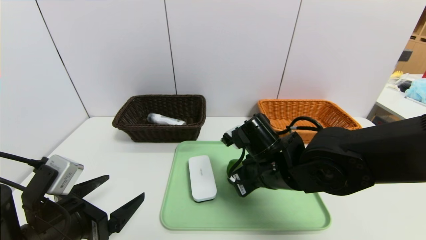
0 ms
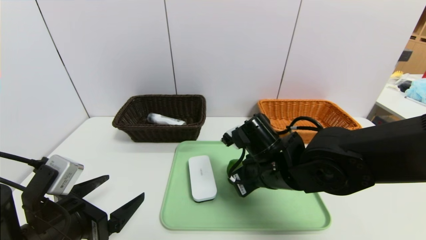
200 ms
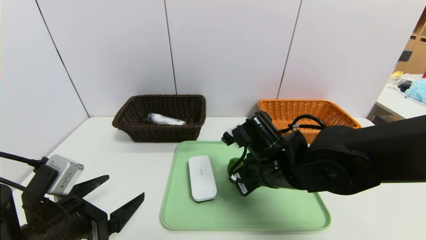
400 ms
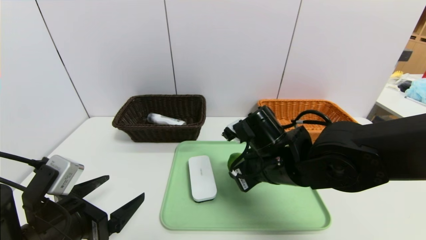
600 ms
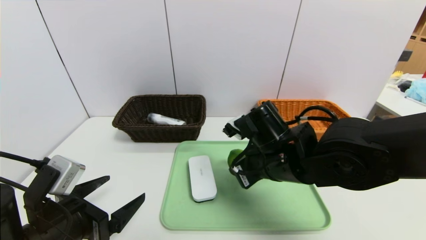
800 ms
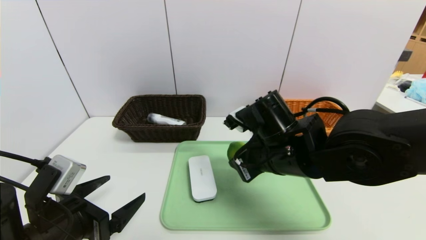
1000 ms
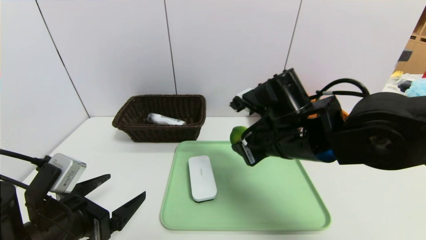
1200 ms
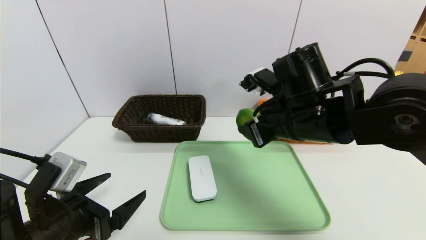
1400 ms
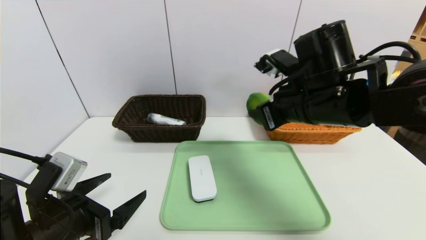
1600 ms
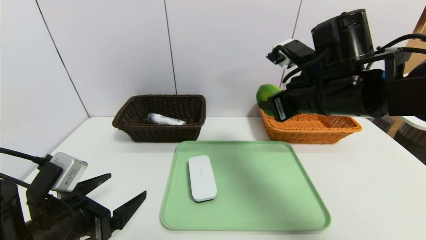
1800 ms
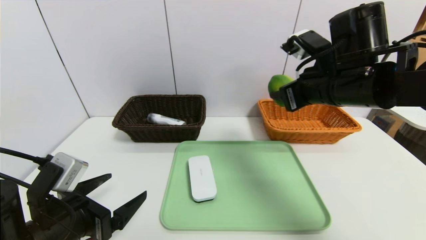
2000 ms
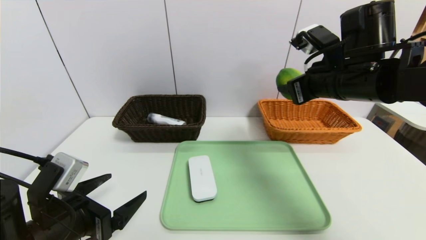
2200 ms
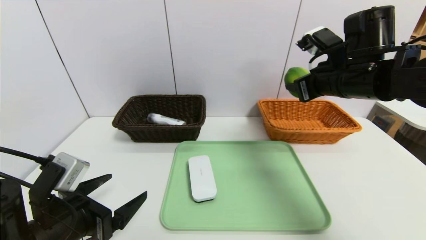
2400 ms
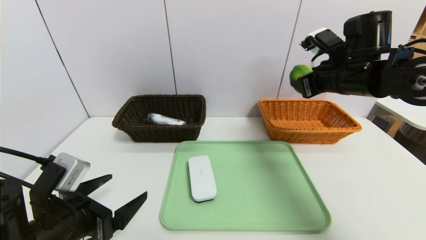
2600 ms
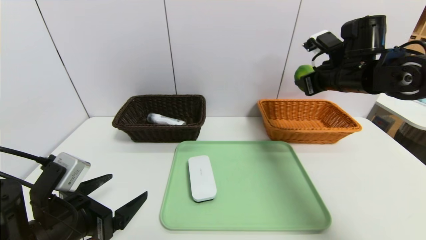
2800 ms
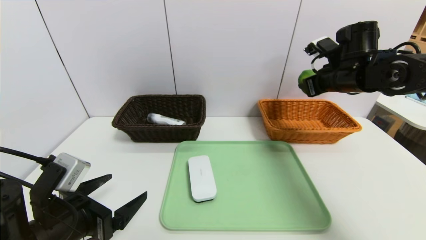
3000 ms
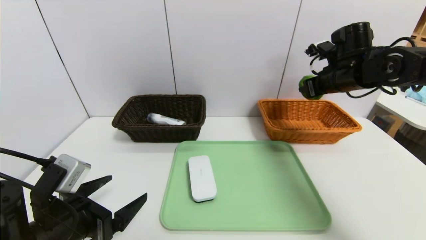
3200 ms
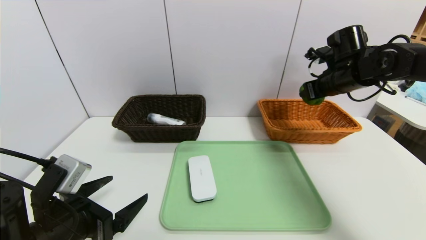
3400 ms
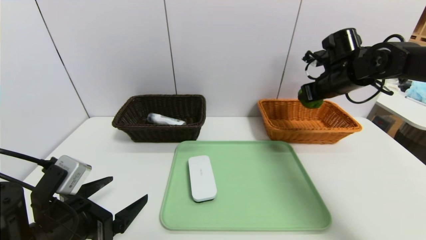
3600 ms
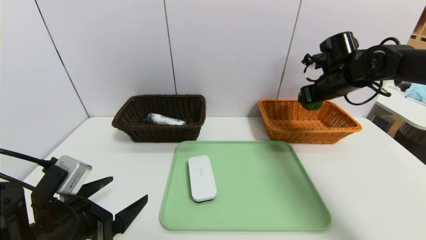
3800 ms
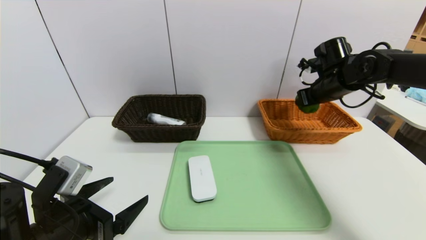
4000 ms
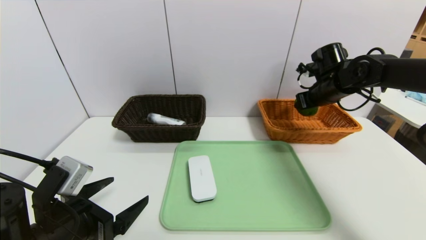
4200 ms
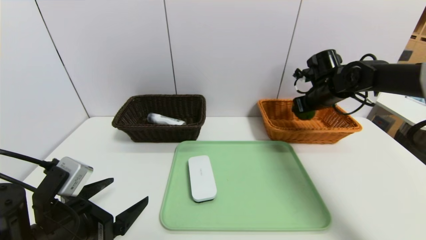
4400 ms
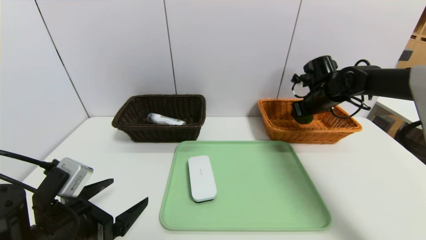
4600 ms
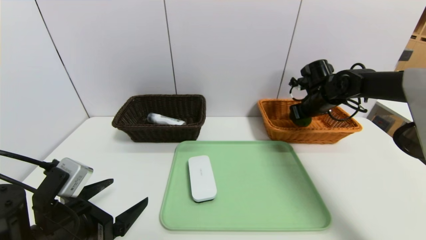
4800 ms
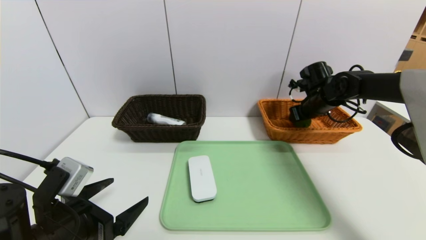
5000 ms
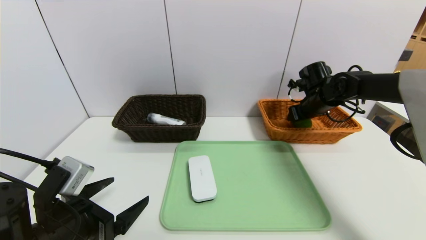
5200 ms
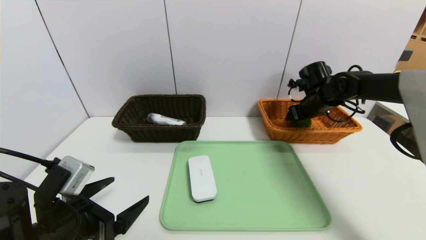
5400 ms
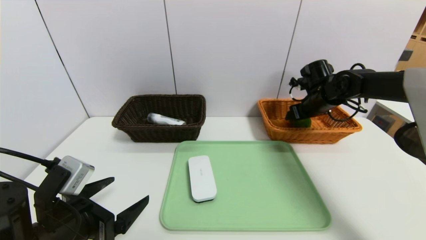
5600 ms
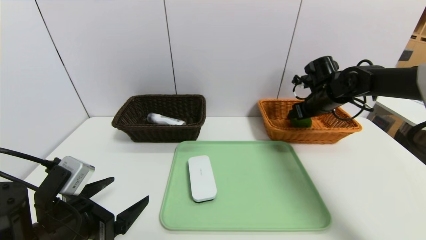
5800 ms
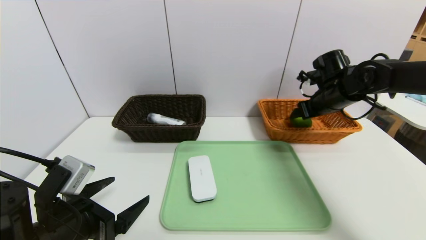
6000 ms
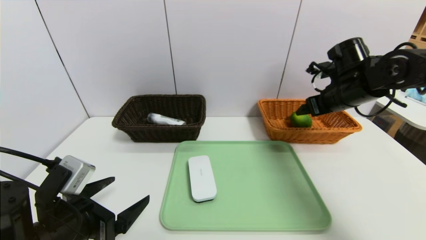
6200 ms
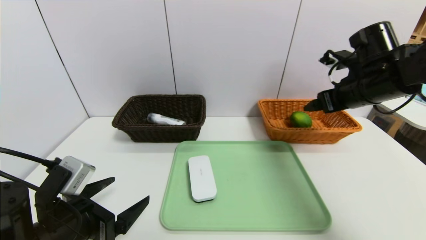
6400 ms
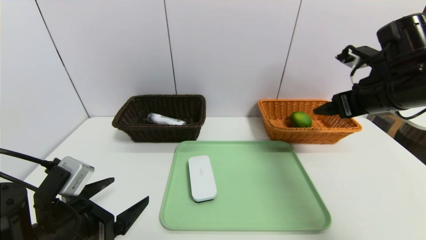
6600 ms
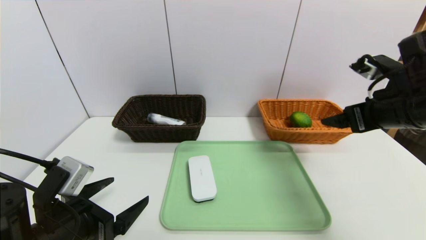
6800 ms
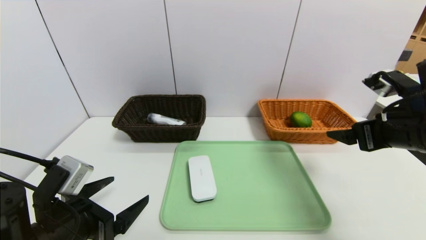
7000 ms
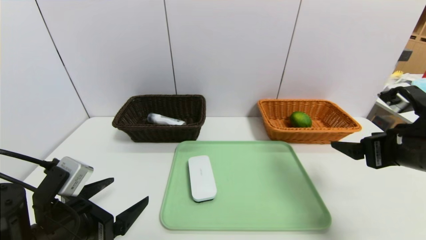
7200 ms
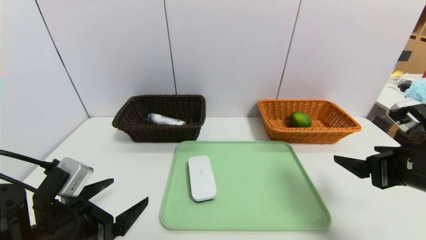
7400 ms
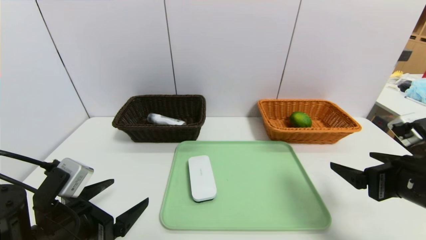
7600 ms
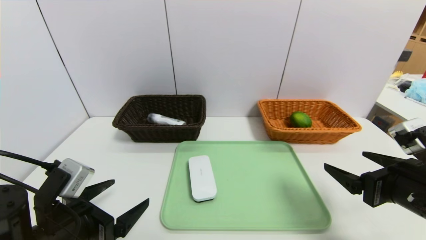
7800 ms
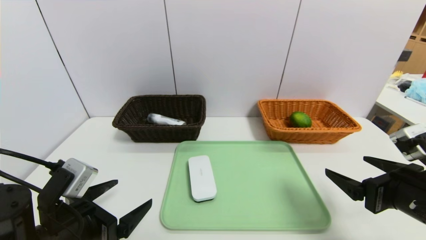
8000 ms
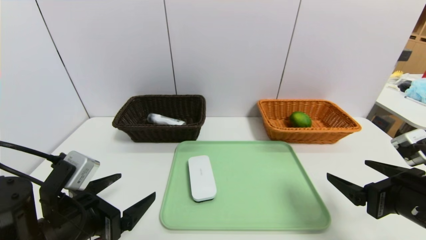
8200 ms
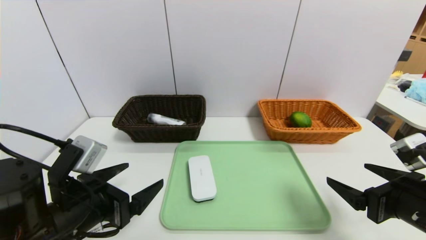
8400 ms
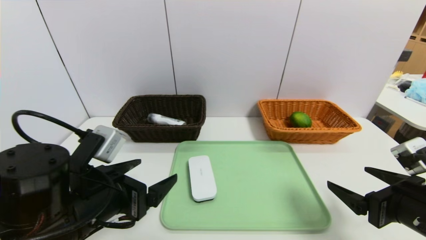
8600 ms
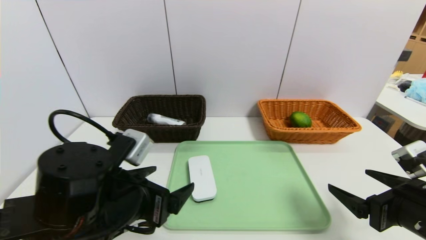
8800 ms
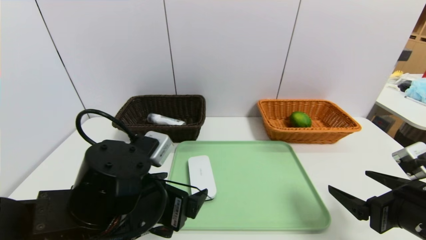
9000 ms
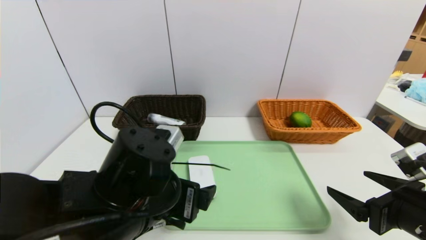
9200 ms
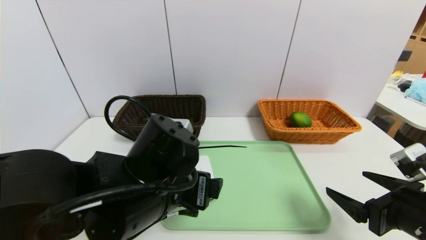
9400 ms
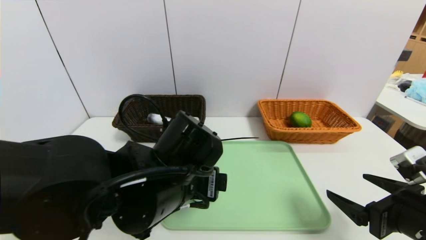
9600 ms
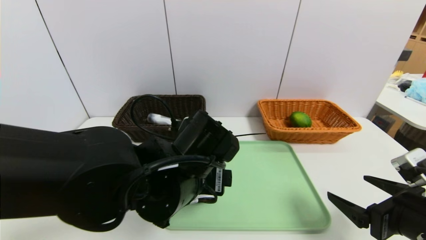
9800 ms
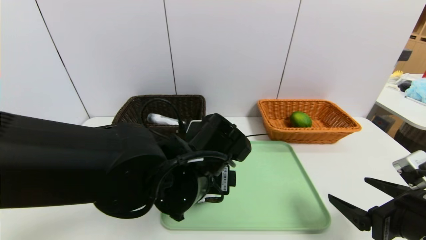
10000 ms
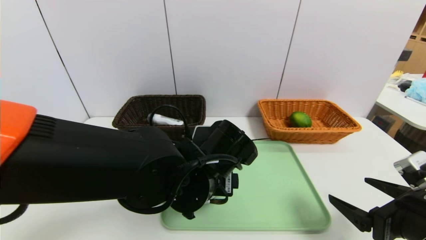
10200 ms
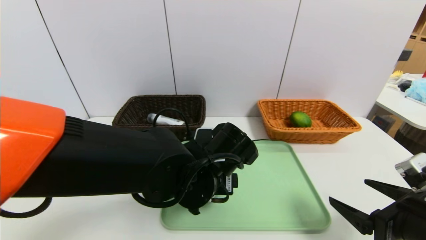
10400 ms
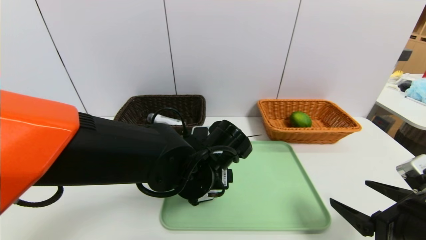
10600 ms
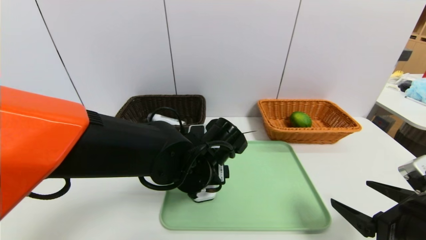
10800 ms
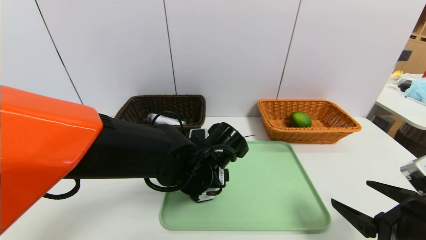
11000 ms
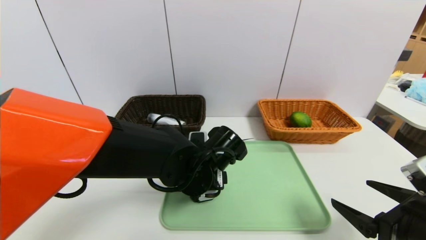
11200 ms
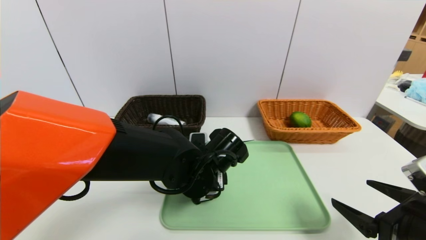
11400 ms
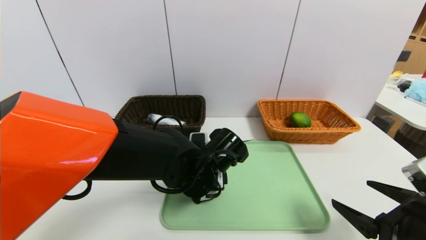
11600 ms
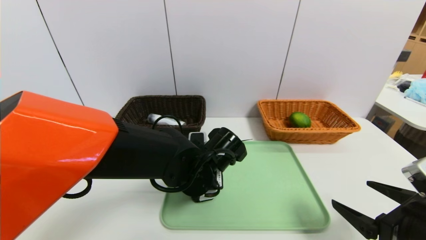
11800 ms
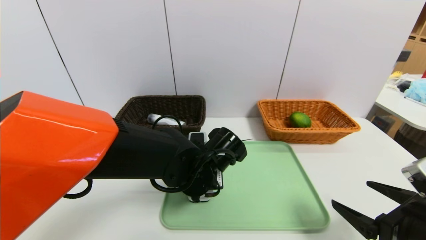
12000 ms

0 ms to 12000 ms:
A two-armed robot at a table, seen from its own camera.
Task of the whole recording: place the food in the right basket with the right gripper, and place the non food items in the left basket with the left gripper.
Step, 0 ms to 5600 ms: Grasp the lemon and put it in the right basket.
0 ms to 1600 ms: The right gripper travels upward and to the right by roughly 15 cm.
1600 ms to 3000 ms: The right gripper goes about 15 cm to the right and forward.
3000 ms to 4400 ms: The right gripper goes roughly 10 cm downward and forward.
4400 ms to 6000 ms: The right gripper opens.
6000 ms to 7600 ms: The right gripper goes some 25 cm backward.
7600 ms to 9000 ms: The left gripper travels to the right by some 10 cm.
9000 ms to 10400 ms: The left gripper goes some 10 cm to the right and forward.
10400 ms to 12000 ms: The left gripper closes.

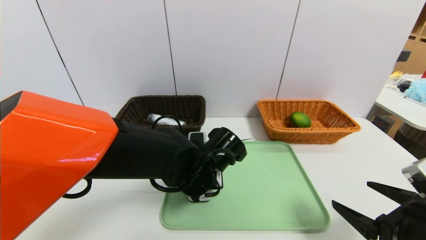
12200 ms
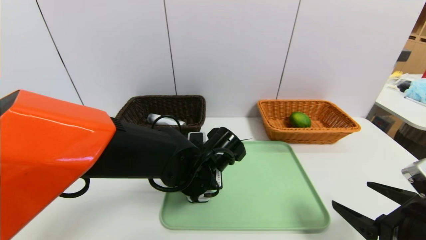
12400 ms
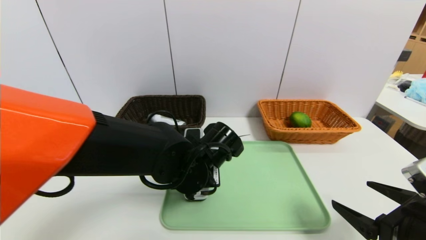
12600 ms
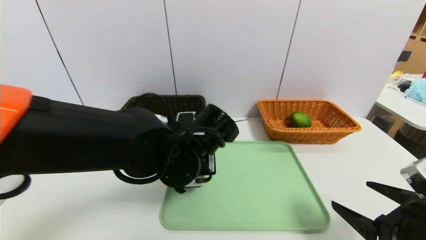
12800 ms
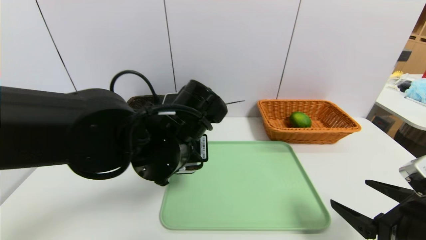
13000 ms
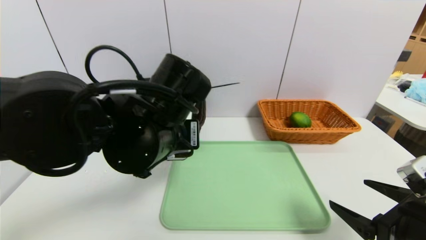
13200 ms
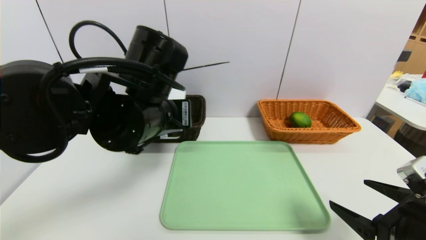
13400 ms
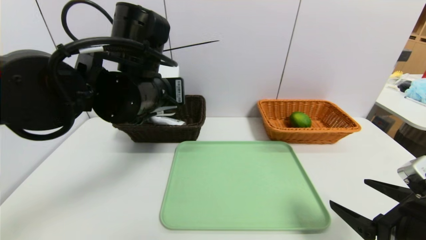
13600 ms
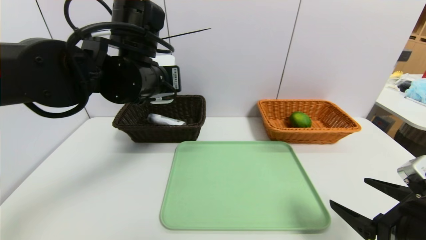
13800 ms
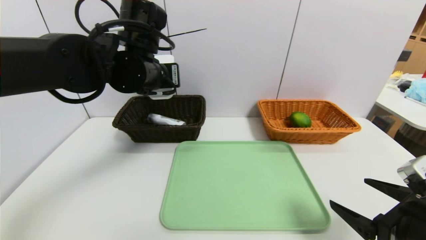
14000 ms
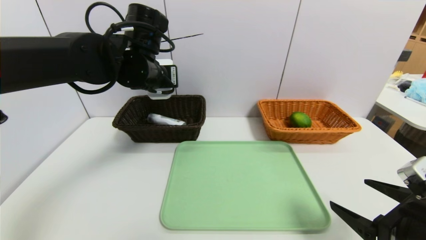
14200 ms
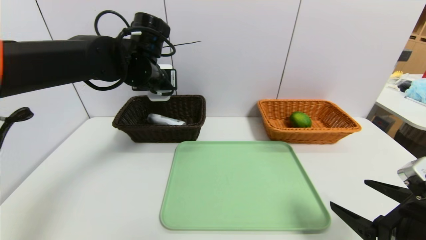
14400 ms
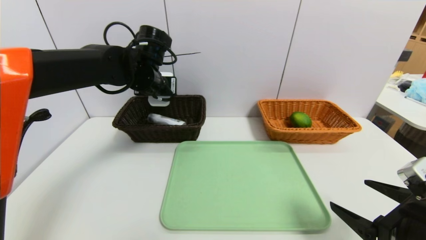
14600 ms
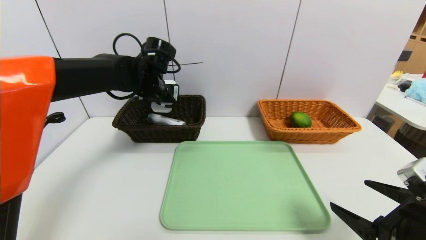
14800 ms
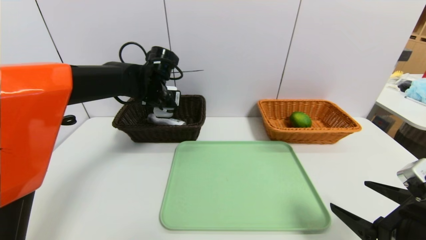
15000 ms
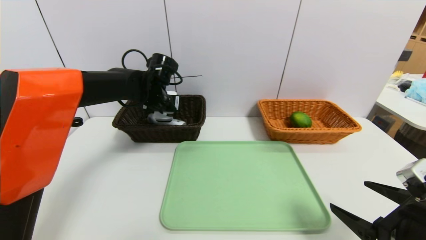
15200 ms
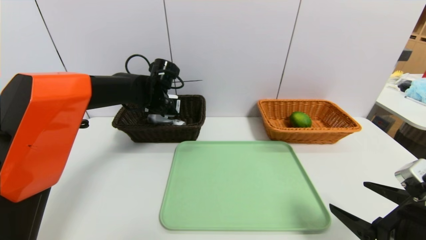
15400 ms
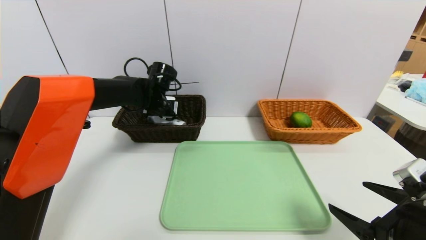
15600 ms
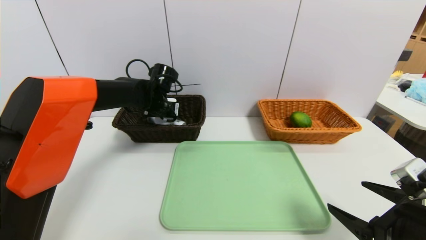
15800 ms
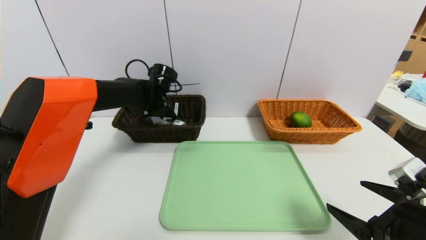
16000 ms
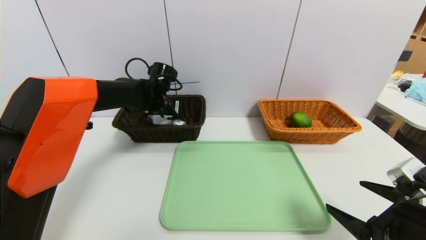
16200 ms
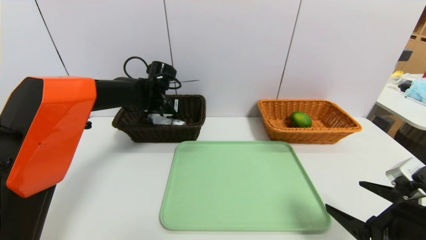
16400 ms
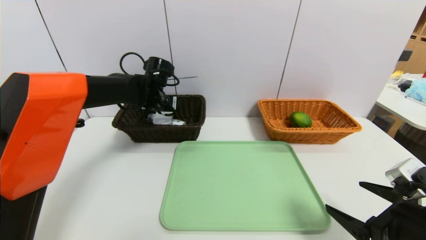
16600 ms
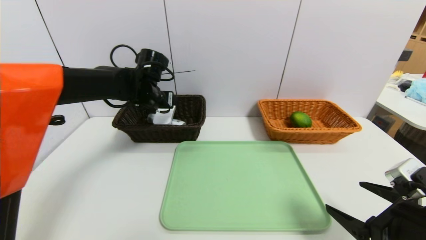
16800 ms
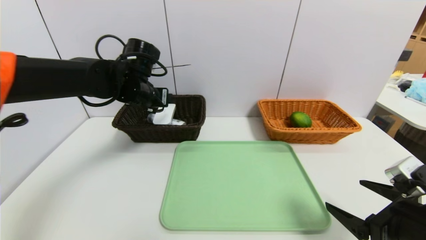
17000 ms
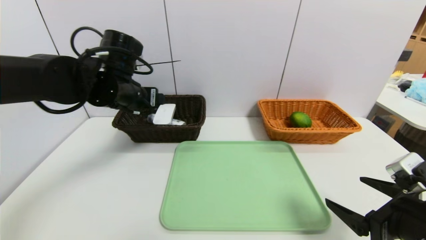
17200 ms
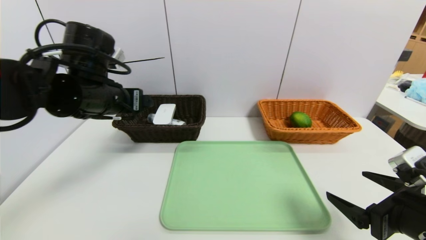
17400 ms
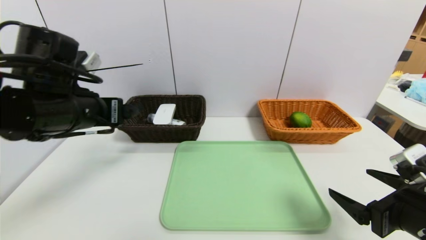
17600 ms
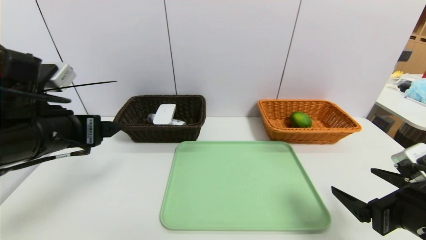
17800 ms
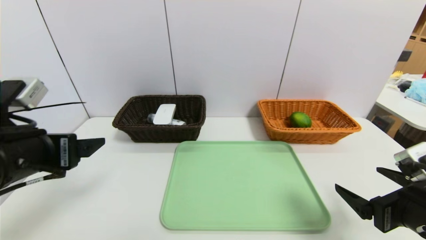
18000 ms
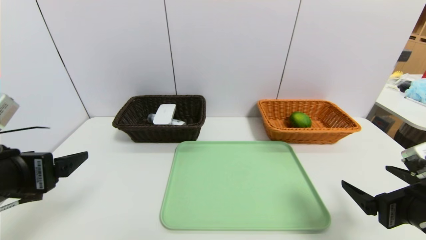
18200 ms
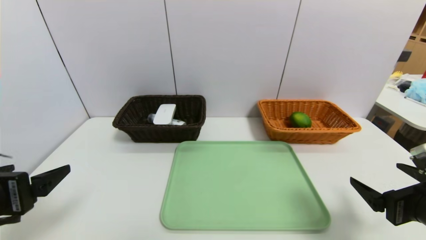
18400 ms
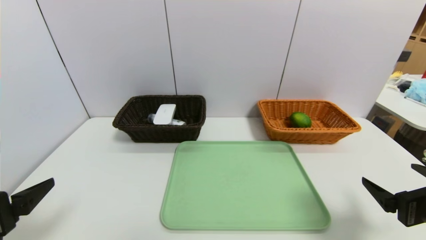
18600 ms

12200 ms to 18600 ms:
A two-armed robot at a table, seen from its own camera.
Task of the whole recording: place the food in the right basket with the right gripper, and place the non food items in the left basket with the left gripper.
Step, 12200 ms to 16400 ms: Grasp the white eraser and put it in the left basket.
12200 ms to 13800 ms: The left gripper goes some 20 cm upward and to the left.
13800 ms to 15400 ms: The left gripper travels forward and downward by roughly 20 cm.
15400 ms to 17000 ms: The left gripper heads backward, covering some 5 cm, and opens up.
17000 ms to 18600 ms: The left gripper heads backward and to the left, covering about 30 cm.
